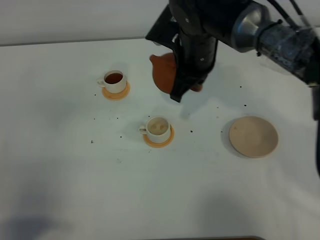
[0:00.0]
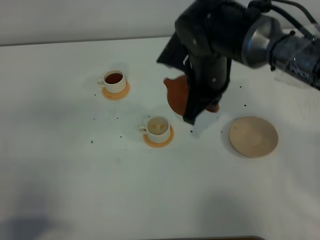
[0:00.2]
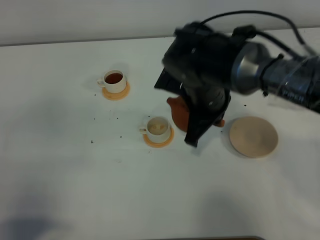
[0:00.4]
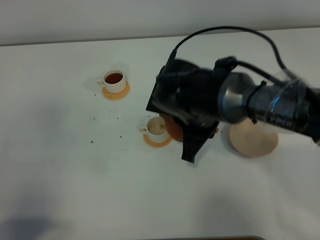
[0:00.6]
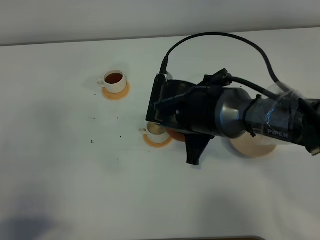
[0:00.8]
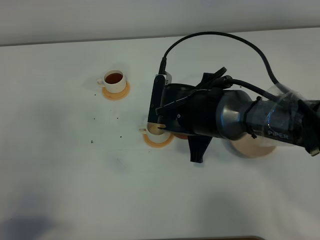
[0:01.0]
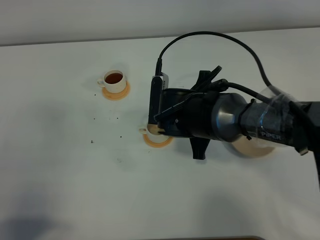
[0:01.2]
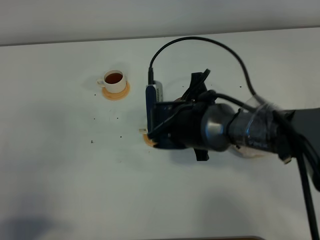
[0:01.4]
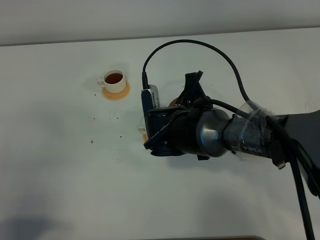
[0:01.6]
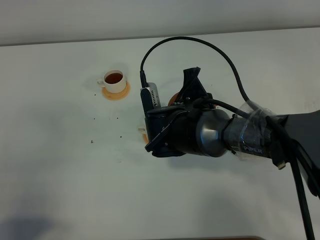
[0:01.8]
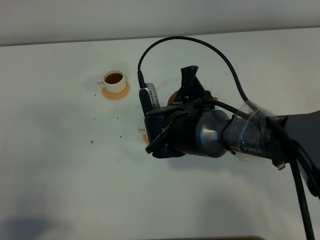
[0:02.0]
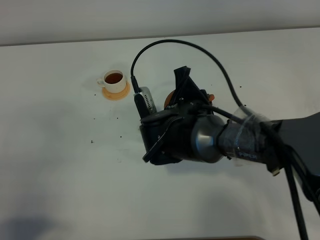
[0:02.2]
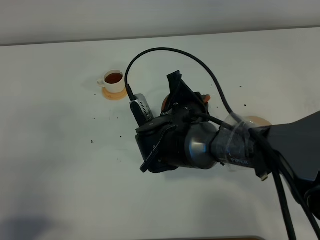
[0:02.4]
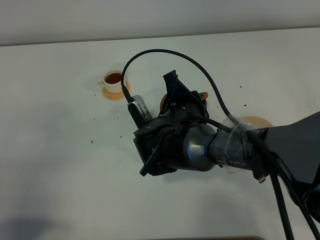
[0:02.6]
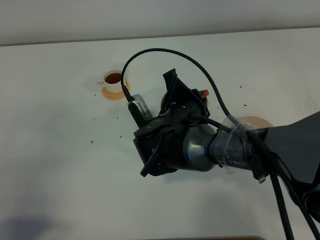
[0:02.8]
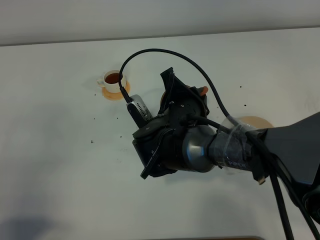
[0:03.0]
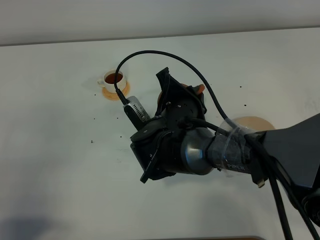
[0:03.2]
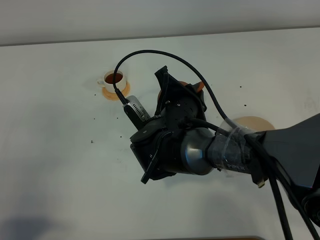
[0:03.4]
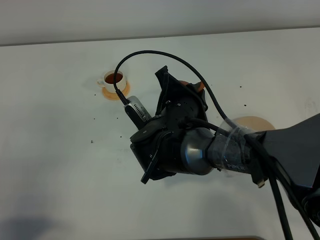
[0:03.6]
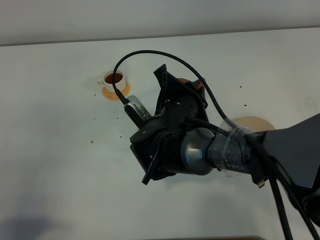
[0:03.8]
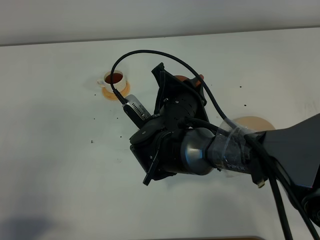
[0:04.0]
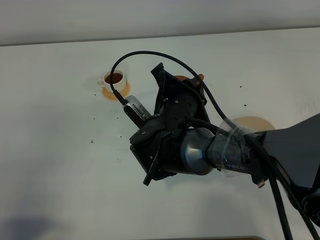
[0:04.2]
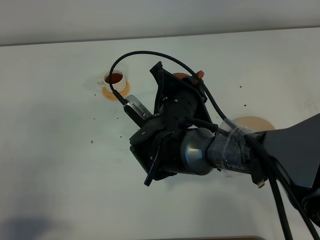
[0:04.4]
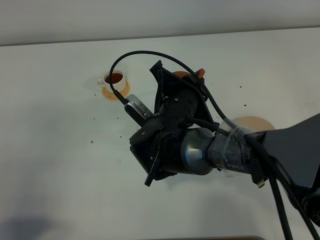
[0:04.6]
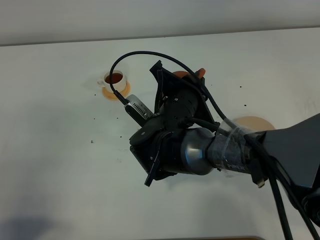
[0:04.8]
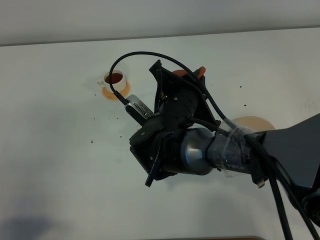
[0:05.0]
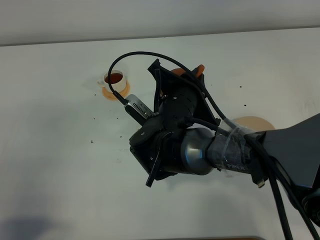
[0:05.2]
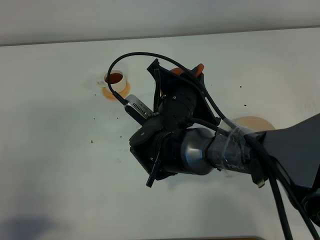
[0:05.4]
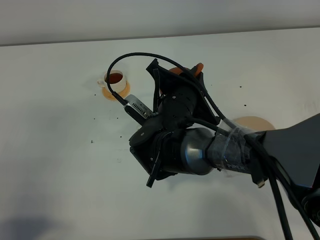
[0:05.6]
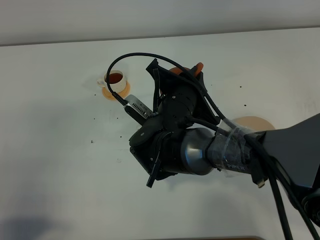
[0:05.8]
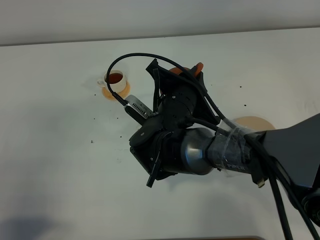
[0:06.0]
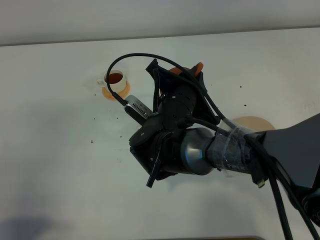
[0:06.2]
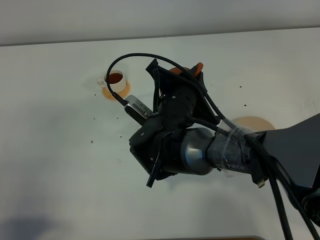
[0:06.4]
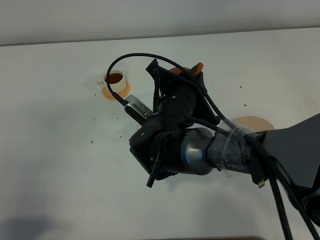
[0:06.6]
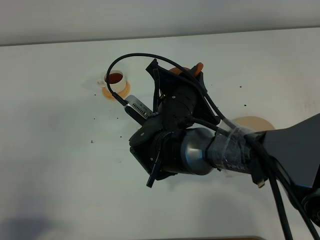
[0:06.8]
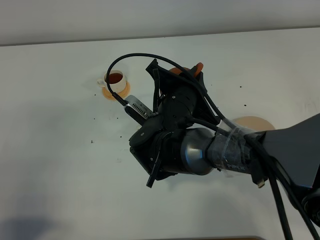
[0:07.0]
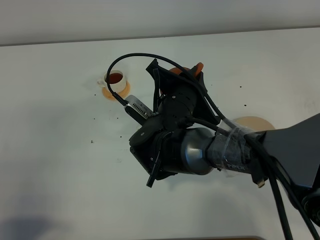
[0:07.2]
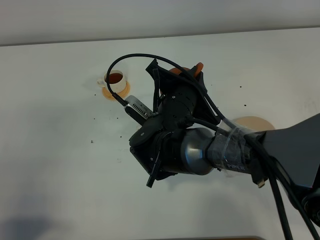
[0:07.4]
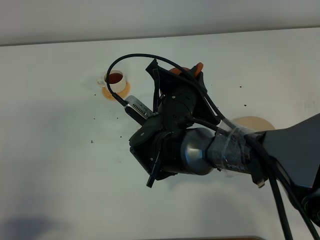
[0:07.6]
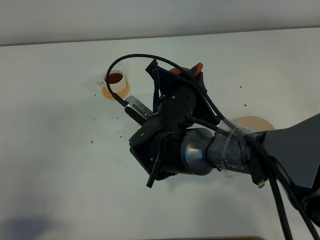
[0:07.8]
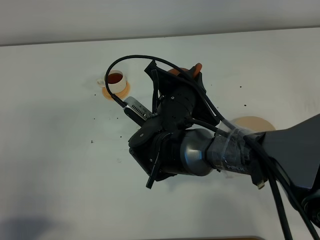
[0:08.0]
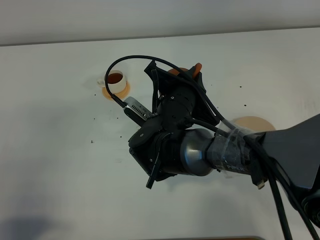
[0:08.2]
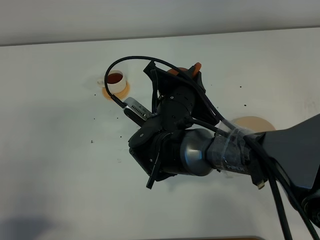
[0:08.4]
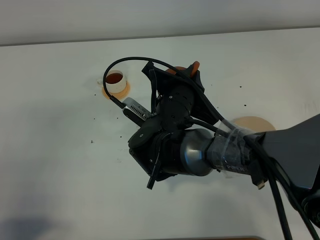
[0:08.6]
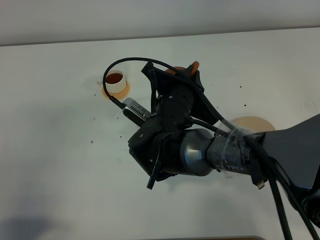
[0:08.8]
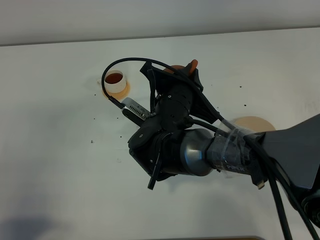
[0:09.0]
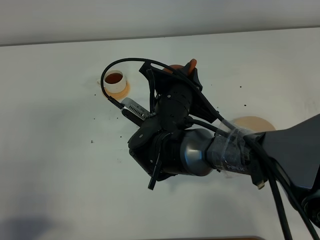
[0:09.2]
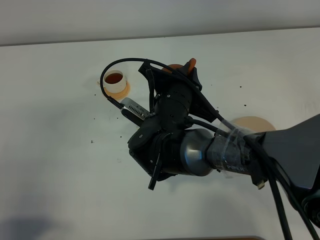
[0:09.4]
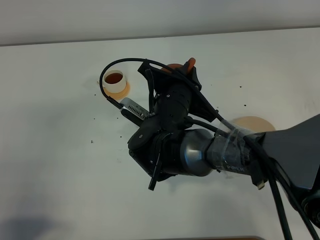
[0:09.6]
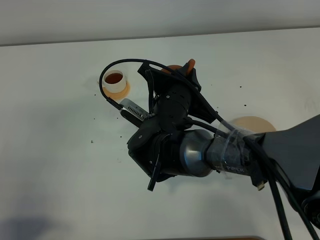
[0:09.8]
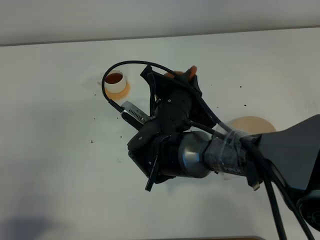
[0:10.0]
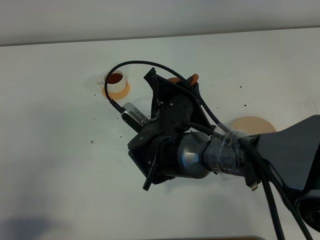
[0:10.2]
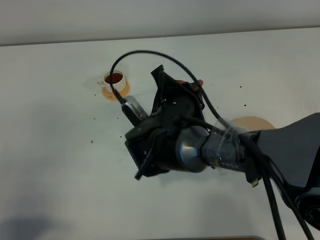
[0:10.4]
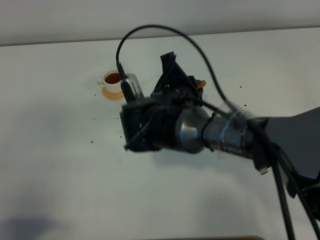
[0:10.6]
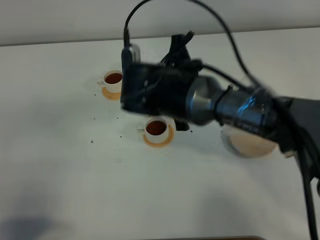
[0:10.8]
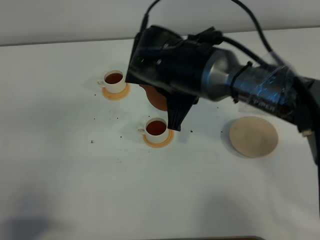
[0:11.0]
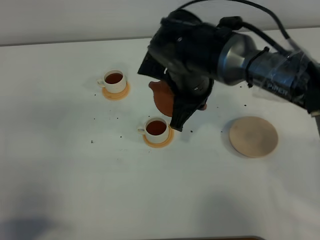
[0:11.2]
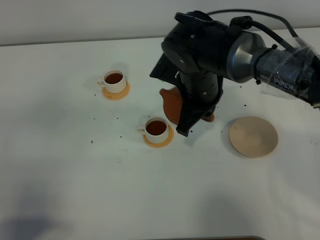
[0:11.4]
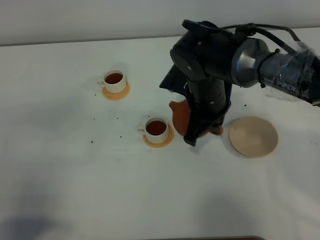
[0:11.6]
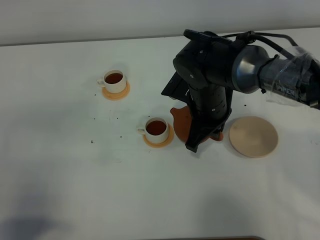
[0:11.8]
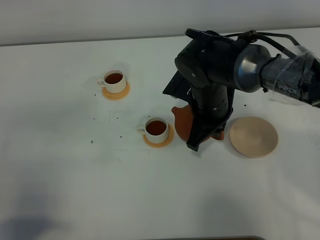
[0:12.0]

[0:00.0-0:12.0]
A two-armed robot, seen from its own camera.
Task of the whole recording: grasp the brown teapot and pour the tea into the two white teacups one by one, put the brown teapot back in its original place.
Step, 0:00.0 to 0:10.6: Pour tea into the teacup with the right gripper.
0:00.0 to 0:01.6: The right gripper is displaced backward and downward by some 10 cm.
0:03.0 to 0:06.0: The grippers make only small movements.
0:06.0 to 0:09.0: The two grippers keep their place.
0:09.0 to 0:10.4: There are only small adjustments of the grippers.
0:10.4 to 0:12.0: The right gripper heads to the right, covering roughly 5 cm.

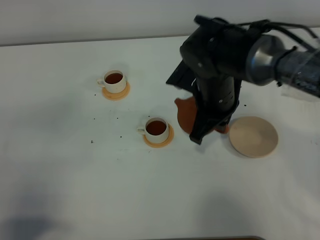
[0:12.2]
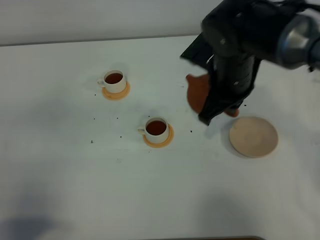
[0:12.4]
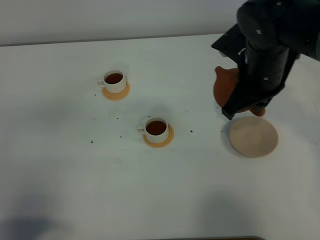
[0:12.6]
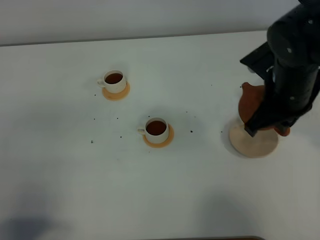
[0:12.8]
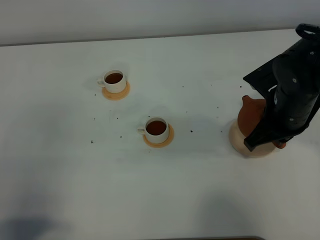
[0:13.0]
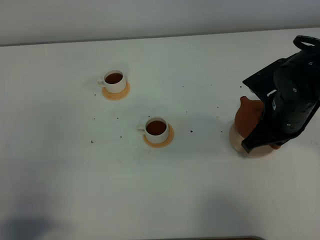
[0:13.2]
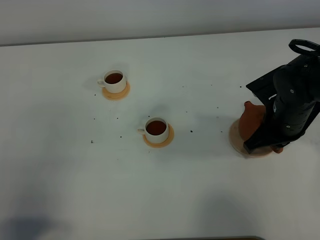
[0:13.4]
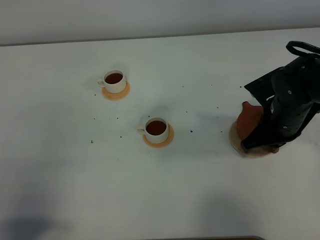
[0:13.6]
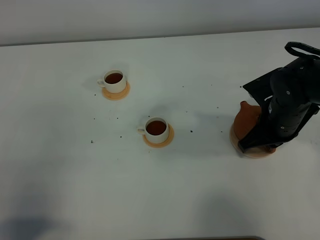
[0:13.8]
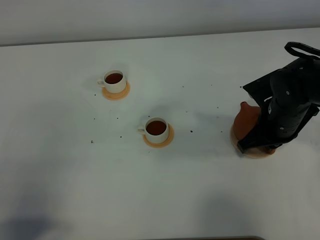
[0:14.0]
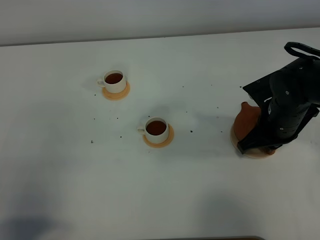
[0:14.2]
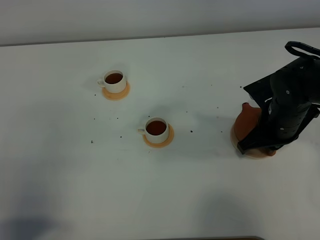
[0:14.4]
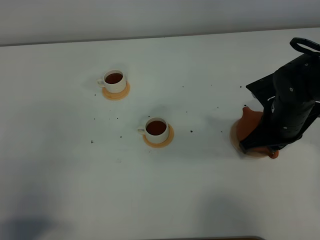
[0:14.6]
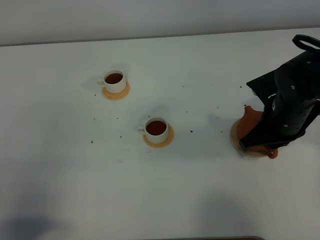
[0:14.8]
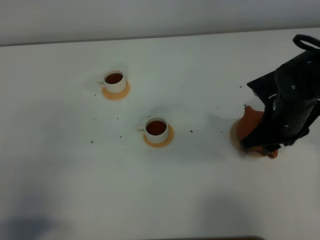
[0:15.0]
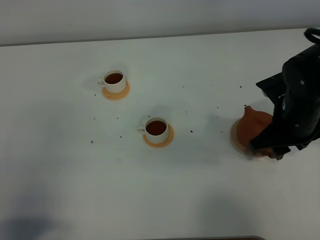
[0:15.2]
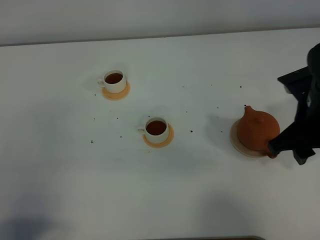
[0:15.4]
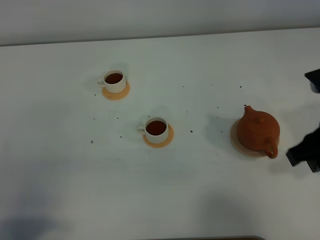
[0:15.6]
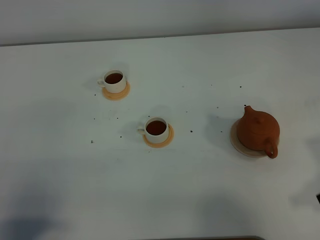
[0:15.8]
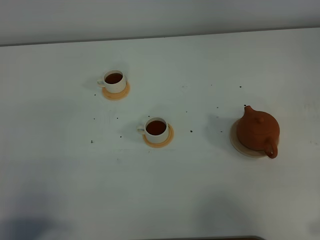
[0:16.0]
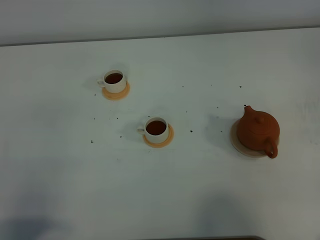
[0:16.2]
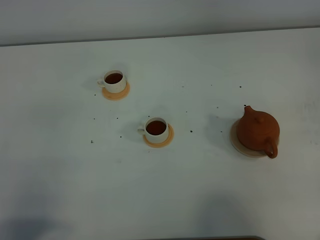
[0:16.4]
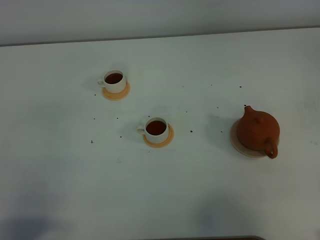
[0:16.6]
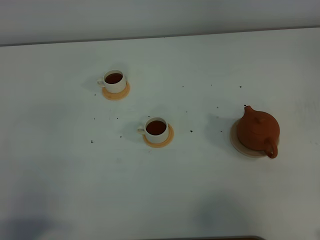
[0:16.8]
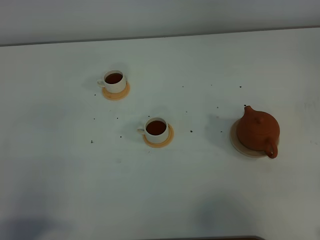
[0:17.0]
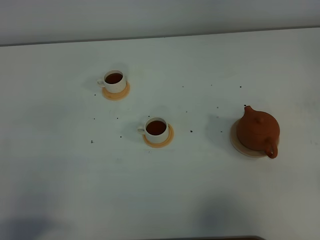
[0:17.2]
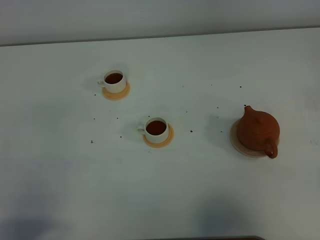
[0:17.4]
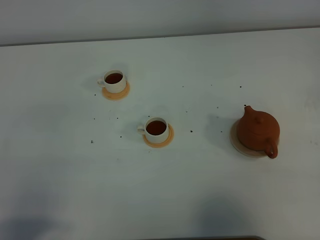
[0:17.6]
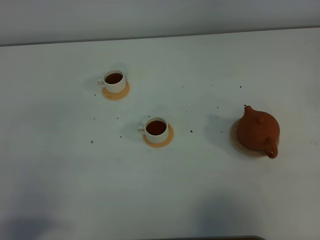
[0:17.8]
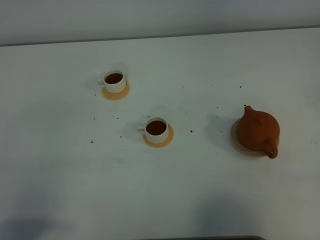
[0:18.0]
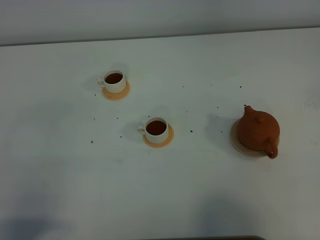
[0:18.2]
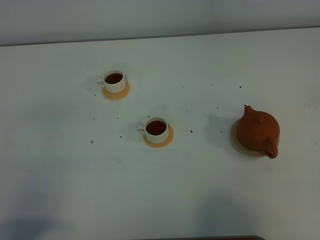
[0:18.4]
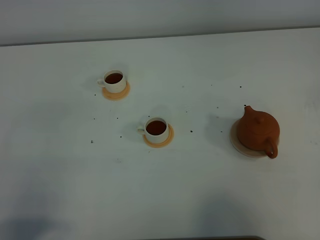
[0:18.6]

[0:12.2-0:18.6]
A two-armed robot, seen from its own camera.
Task of the whole recording: grasp the brown teapot and pour the tea into the two white teacups one by one, put the brown teapot back in its original place.
0:12.2 to 0:13.8: The right gripper is displaced to the right and downward by roughly 15 cm.
0:13.8 to 0:15.4: The right gripper shifts some 10 cm upward and backward, and opens.
0:15.4 to 0:17.0: The right gripper goes roughly 20 cm backward and to the right.

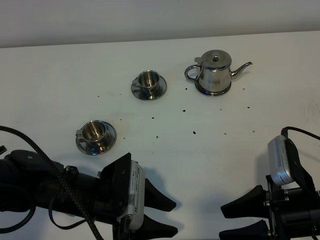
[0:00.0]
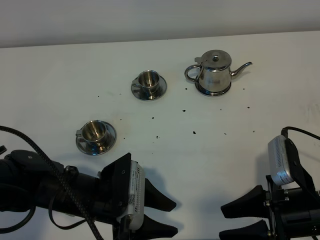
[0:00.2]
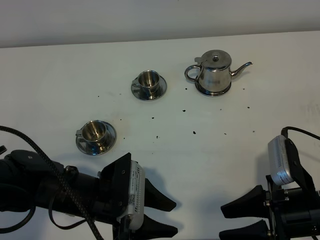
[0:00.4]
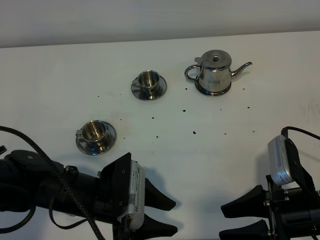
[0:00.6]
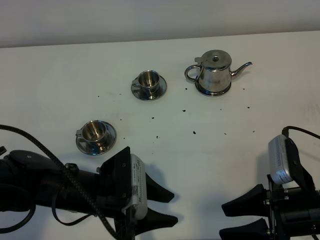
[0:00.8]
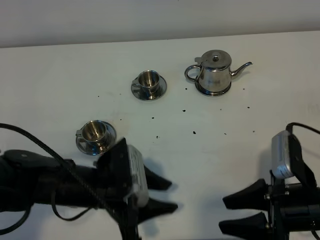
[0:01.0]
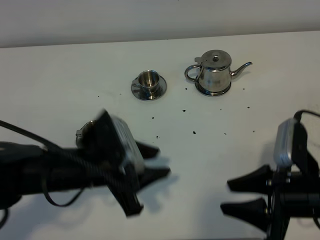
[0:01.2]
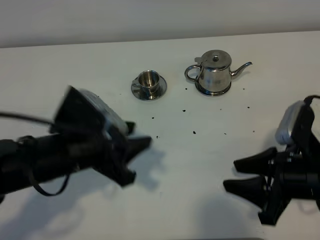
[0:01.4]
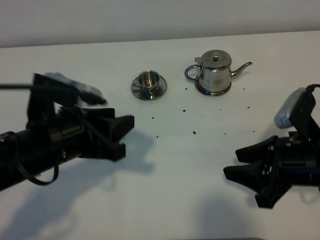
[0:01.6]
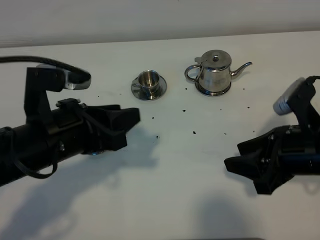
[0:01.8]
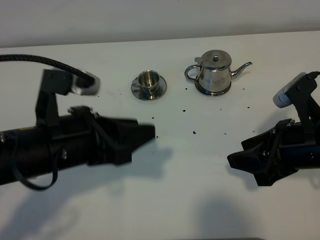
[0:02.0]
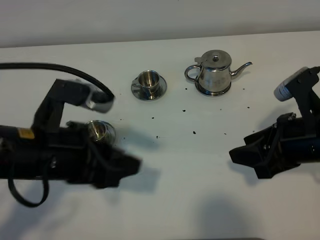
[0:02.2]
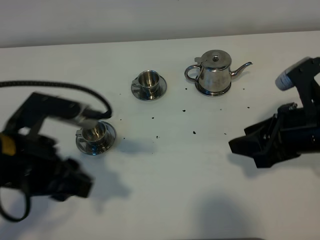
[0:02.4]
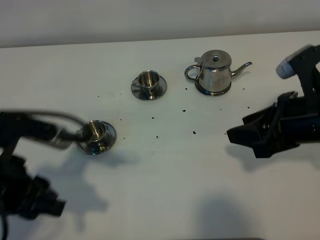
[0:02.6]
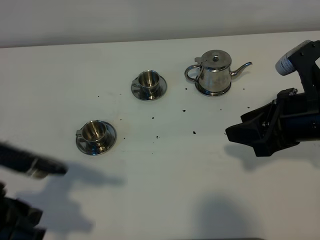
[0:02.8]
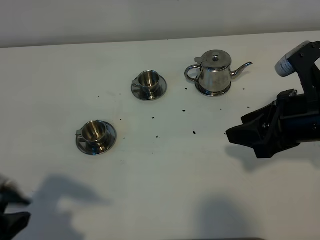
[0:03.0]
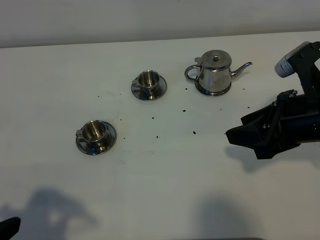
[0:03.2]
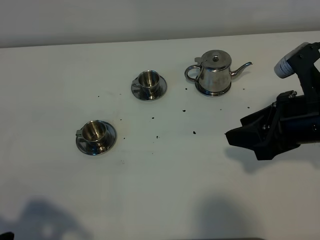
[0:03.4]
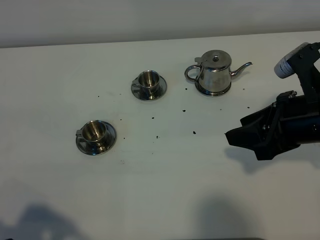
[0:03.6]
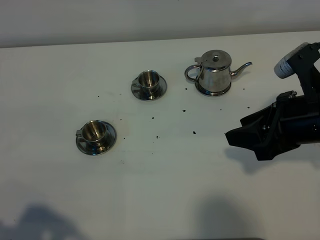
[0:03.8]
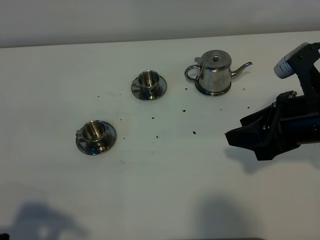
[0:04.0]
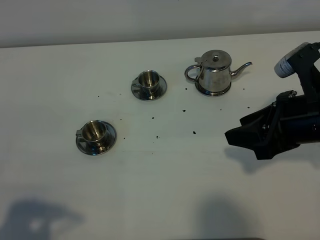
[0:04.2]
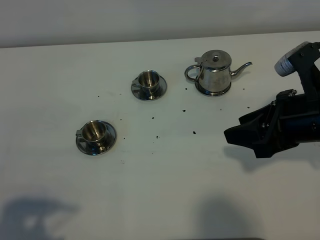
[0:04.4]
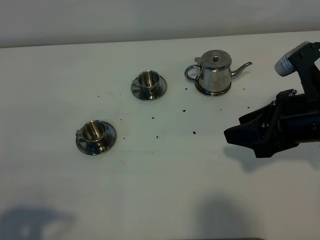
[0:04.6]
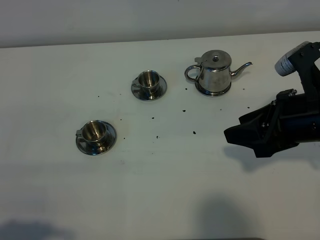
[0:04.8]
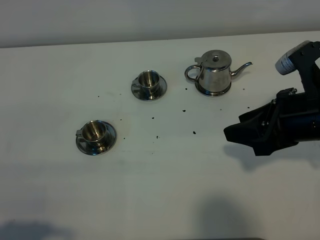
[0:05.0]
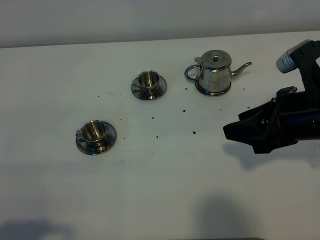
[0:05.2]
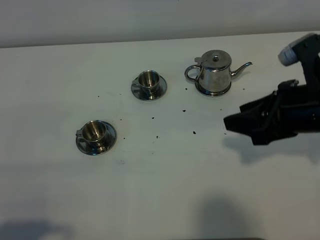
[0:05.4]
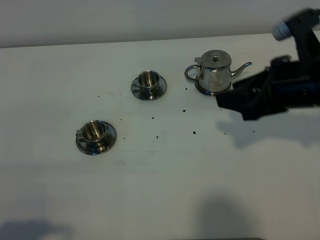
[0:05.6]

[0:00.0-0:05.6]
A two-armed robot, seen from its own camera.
Task of the whole recording: grasp the stainless steel teapot and pour the tea into the two stainless steel teacups one by one, put the stainless steel teapot back in its original place.
0:00.0 to 0:01.4: The left gripper heads upward, covering roughly 5 cm.
0:01.4 to 0:02.8: The left gripper shifts some 10 cm to the left and backward. The right gripper shifts some 10 cm upward and forward.
0:02.8 to 0:04.2: The left gripper travels backward by roughly 10 cm.
0:04.2 to 0:05.6: The grippers move only a little.
